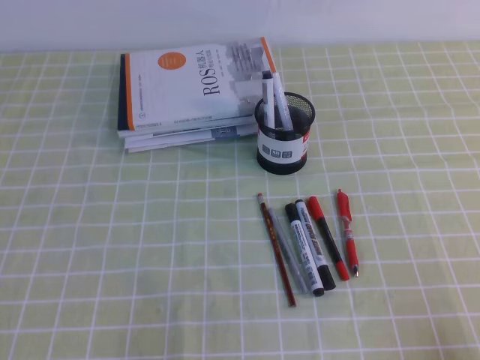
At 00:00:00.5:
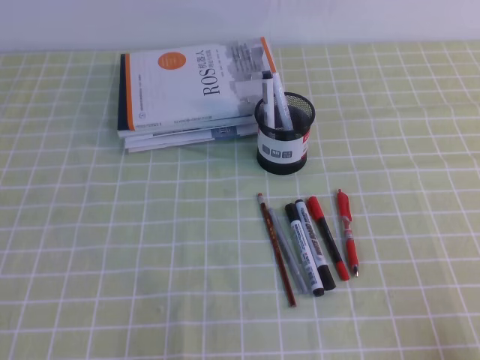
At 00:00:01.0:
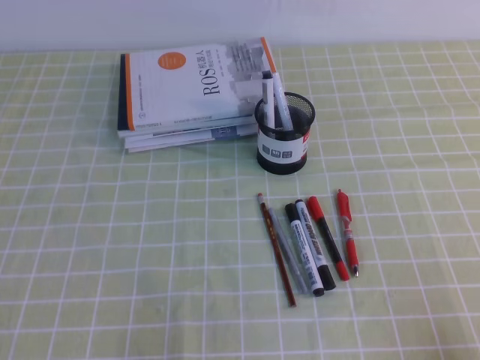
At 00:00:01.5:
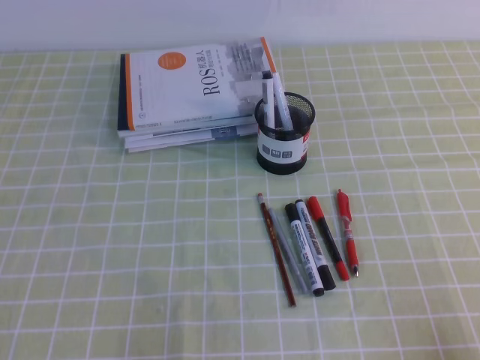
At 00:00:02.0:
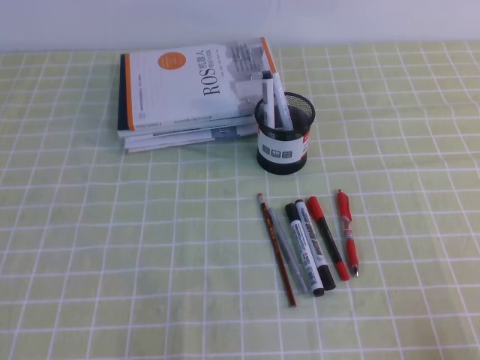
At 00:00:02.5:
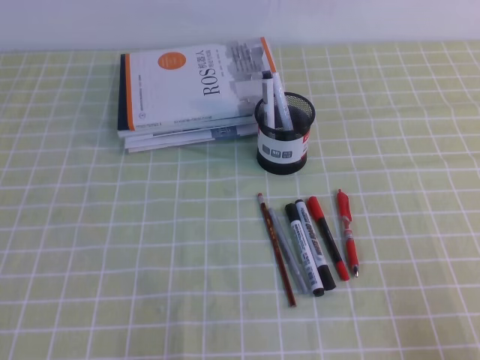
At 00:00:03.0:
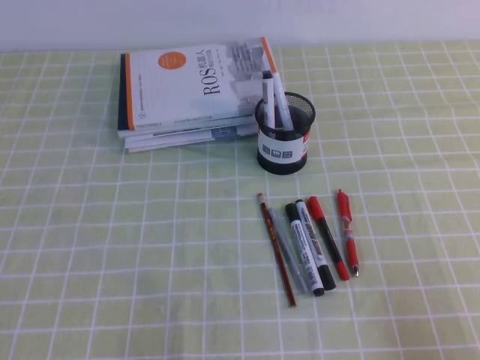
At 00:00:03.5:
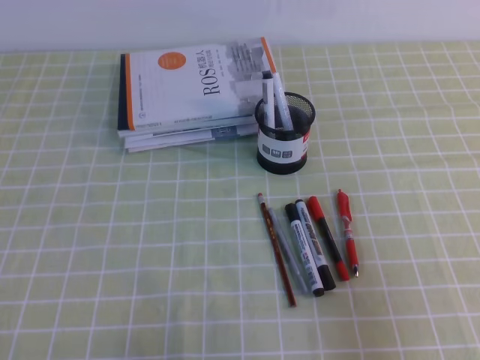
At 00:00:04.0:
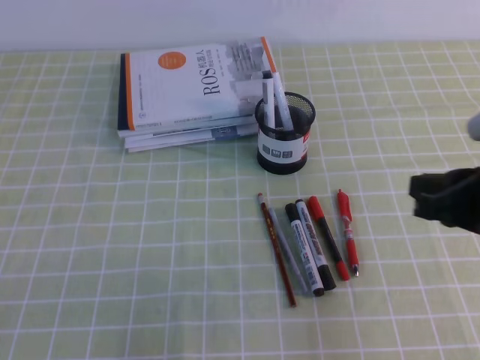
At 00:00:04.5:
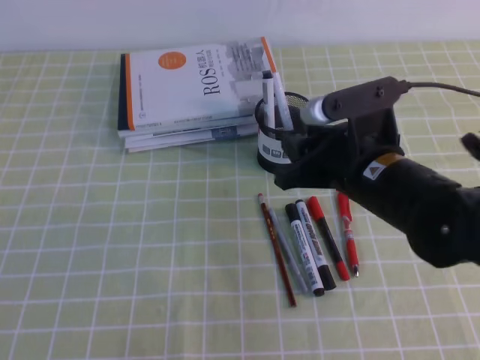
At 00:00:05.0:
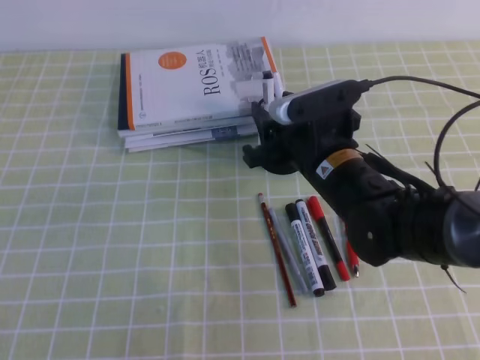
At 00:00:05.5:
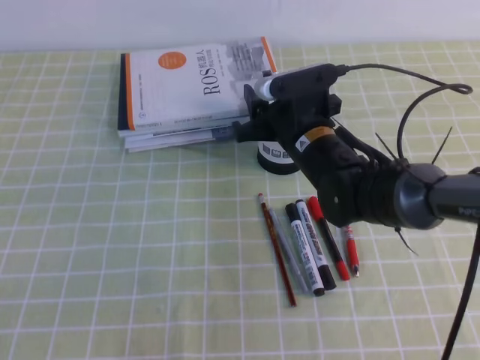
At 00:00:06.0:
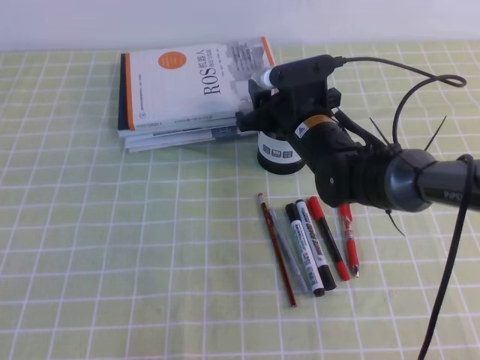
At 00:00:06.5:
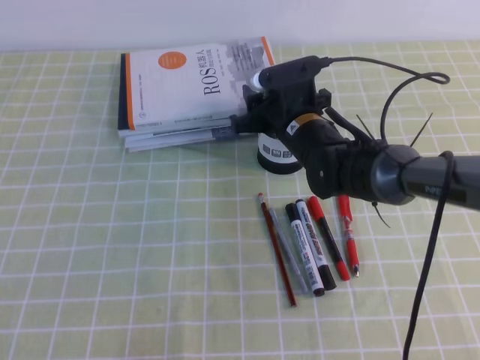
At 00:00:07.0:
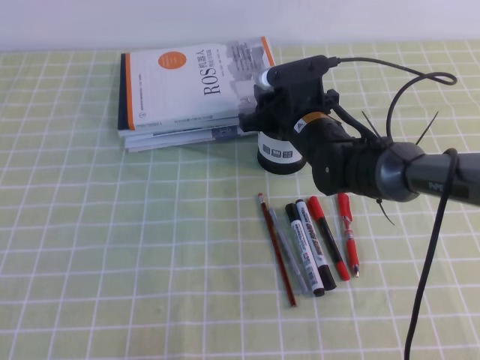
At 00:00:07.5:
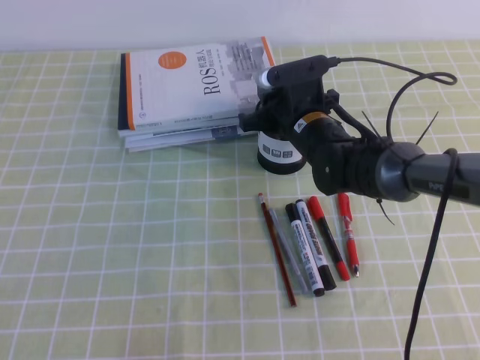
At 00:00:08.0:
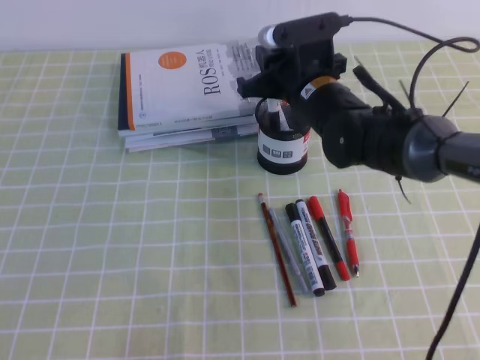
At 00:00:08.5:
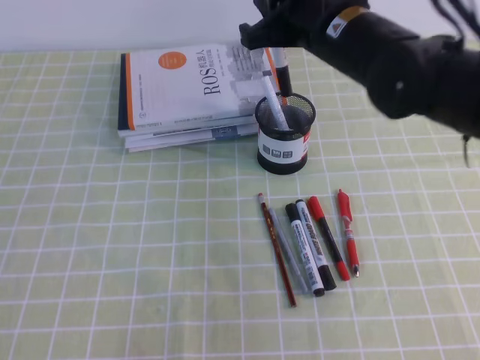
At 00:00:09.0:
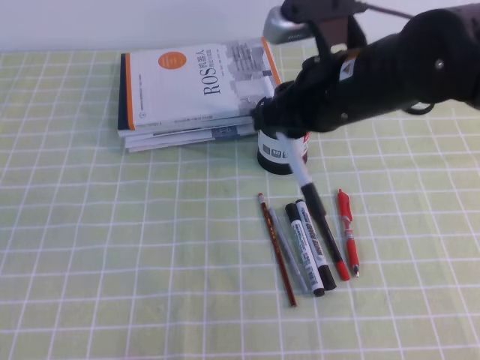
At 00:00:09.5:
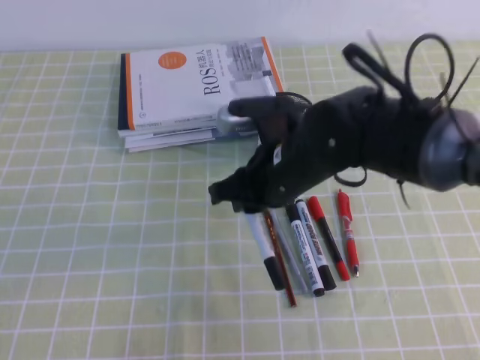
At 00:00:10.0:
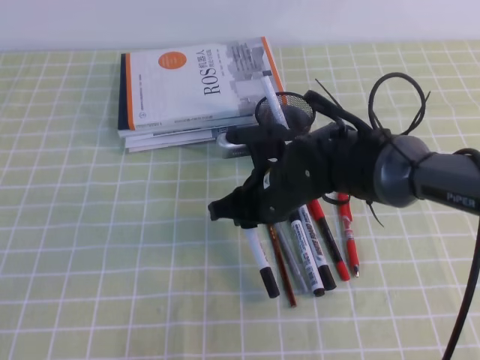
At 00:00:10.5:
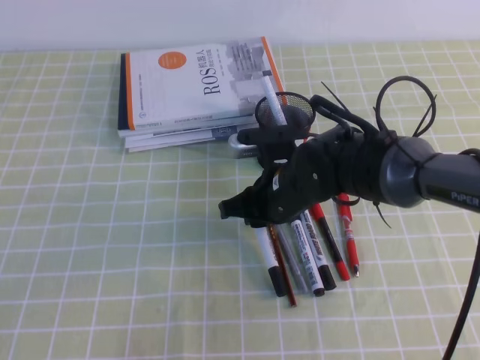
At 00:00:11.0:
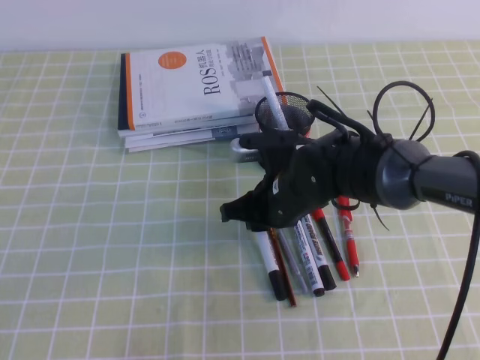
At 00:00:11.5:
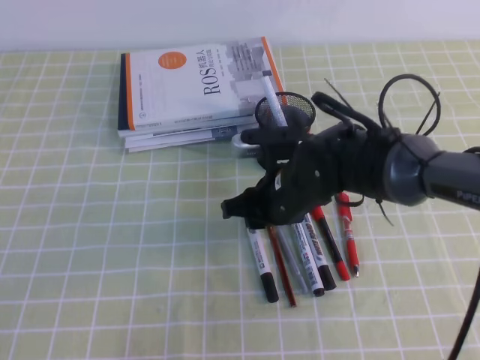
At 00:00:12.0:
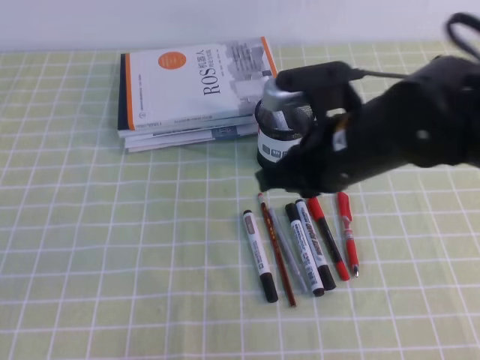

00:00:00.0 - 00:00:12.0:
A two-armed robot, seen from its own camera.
00:00:02.0 - 00:00:04.0: The right gripper moves forward, upward and to the left, some 20 cm.
00:00:04.0 - 00:00:06.0: The right gripper is displaced forward and to the left by about 25 cm, and opens up.
00:00:06.0 - 00:00:08.0: The right gripper closes its fingers.
00:00:08.0 - 00:00:10.0: The right gripper travels backward and downward by approximately 10 cm.
00:00:10.0 - 00:00:12.0: The right gripper travels upward, to the right and backward by roughly 15 cm.

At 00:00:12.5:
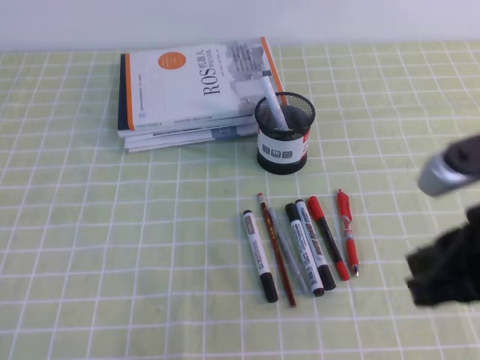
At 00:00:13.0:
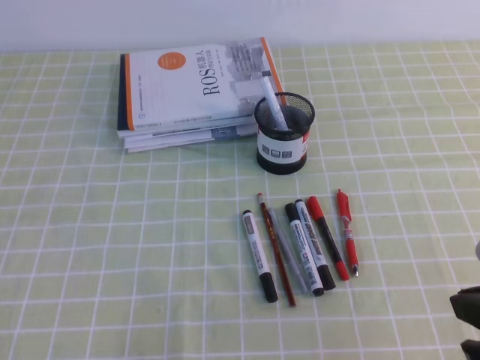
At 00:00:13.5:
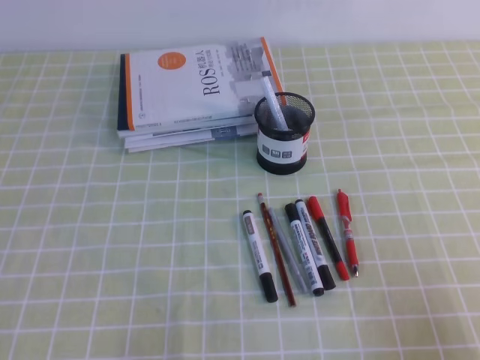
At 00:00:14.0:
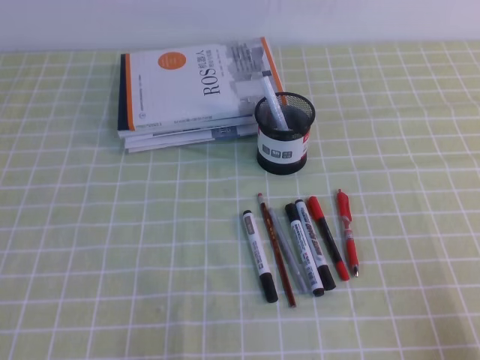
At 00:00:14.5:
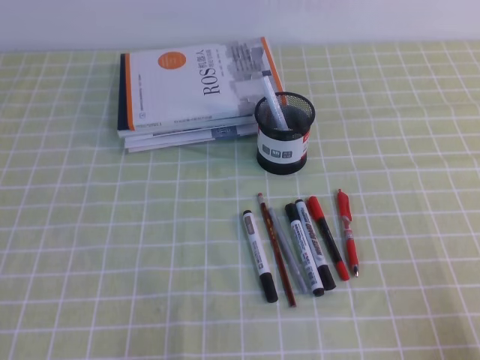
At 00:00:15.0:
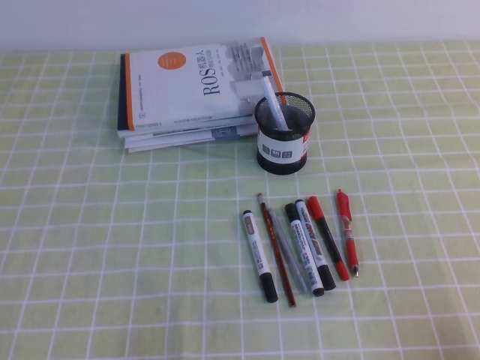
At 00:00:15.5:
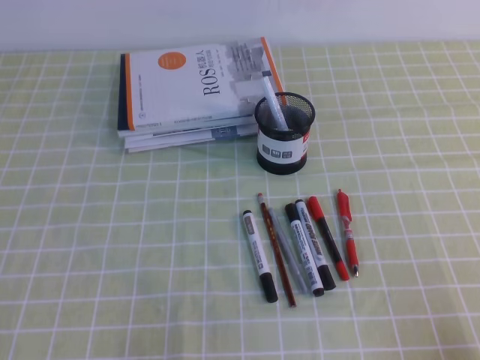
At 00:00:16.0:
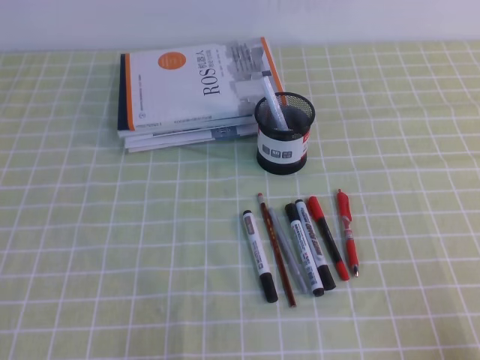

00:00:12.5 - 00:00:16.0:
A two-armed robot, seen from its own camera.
Step, 00:00:12.5 - 00:00:16.0: Pick up the pen from the pen holder.
00:00:12.5 - 00:00:14.5: The right gripper shifts some 20 cm downward, to the right and backward.
